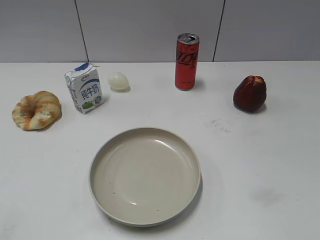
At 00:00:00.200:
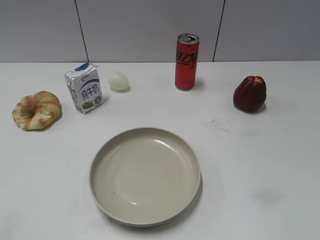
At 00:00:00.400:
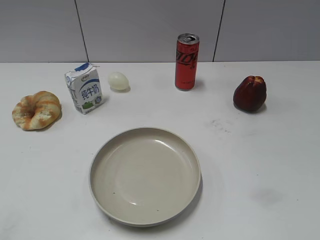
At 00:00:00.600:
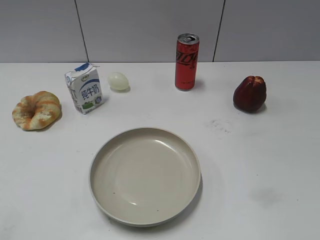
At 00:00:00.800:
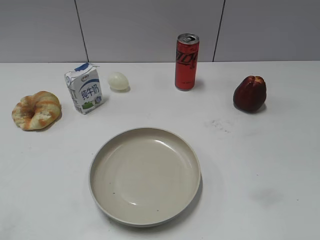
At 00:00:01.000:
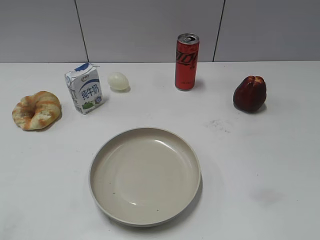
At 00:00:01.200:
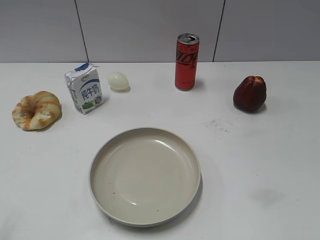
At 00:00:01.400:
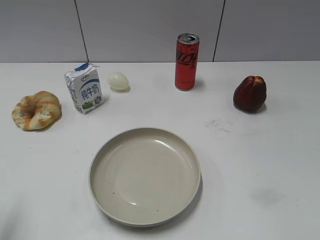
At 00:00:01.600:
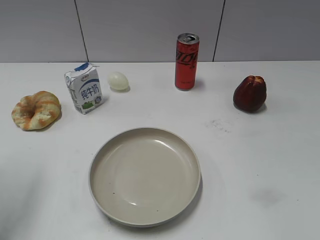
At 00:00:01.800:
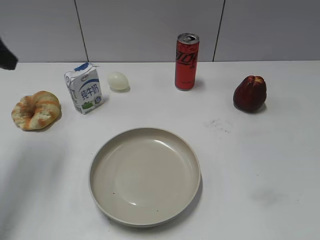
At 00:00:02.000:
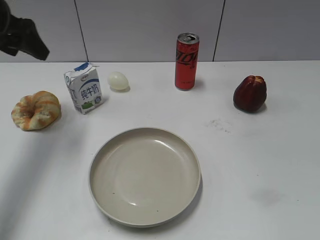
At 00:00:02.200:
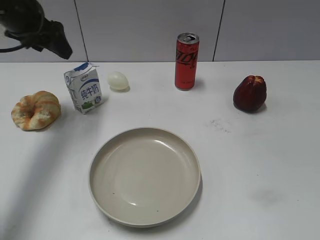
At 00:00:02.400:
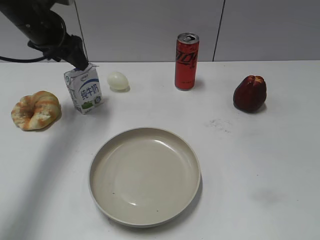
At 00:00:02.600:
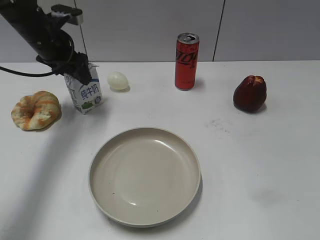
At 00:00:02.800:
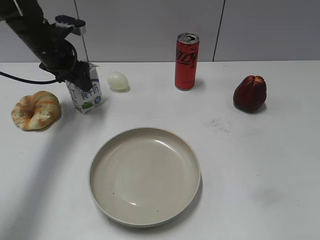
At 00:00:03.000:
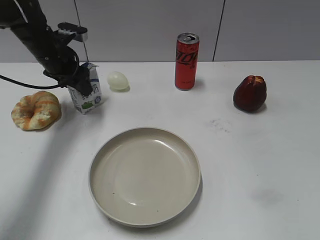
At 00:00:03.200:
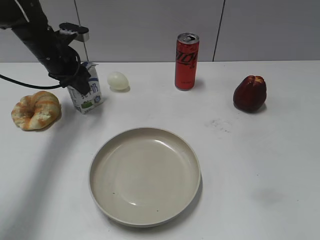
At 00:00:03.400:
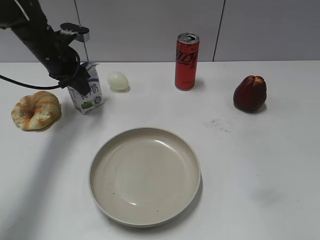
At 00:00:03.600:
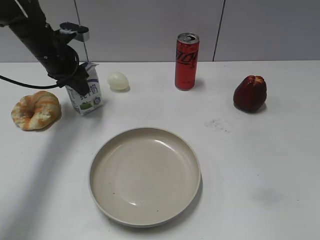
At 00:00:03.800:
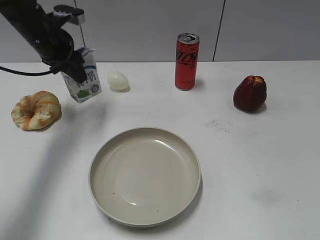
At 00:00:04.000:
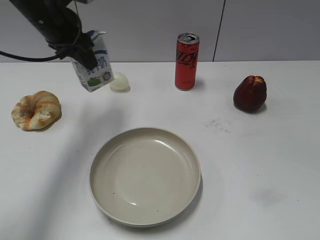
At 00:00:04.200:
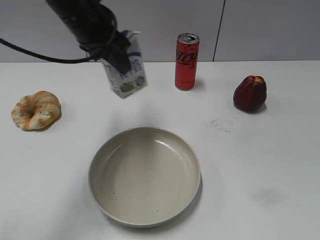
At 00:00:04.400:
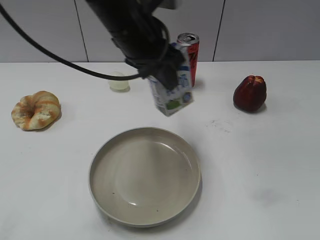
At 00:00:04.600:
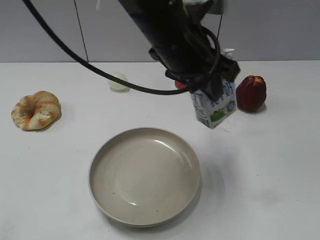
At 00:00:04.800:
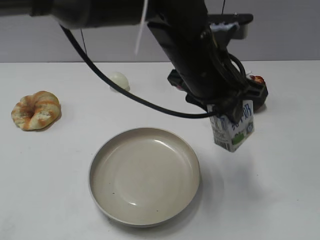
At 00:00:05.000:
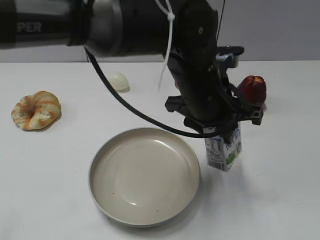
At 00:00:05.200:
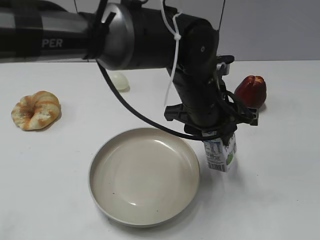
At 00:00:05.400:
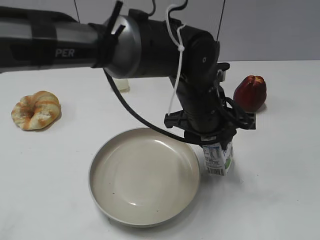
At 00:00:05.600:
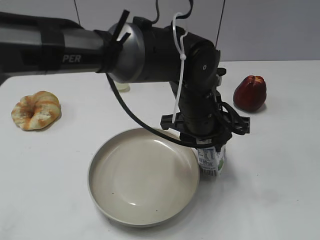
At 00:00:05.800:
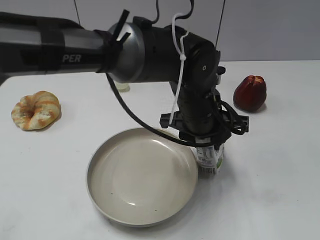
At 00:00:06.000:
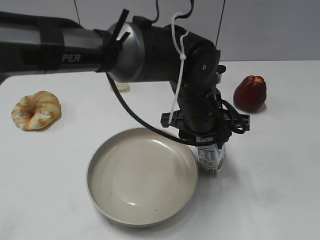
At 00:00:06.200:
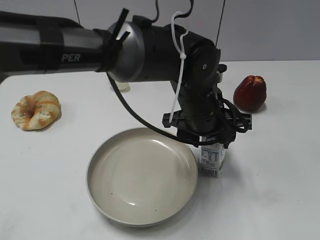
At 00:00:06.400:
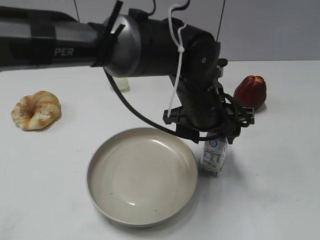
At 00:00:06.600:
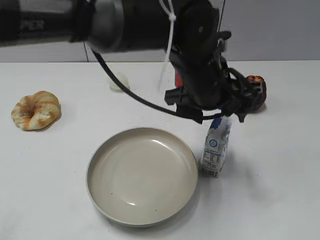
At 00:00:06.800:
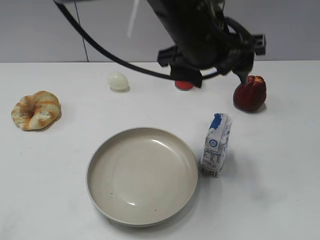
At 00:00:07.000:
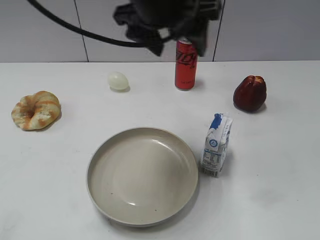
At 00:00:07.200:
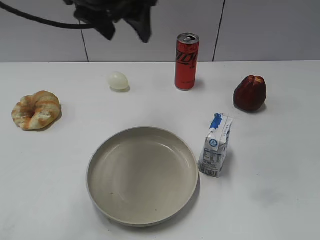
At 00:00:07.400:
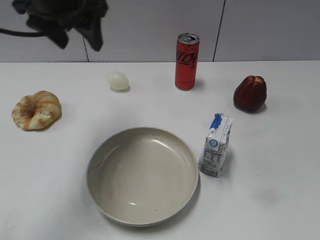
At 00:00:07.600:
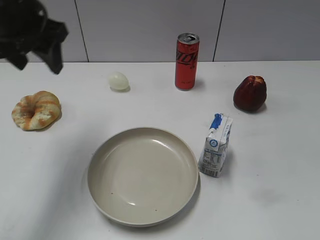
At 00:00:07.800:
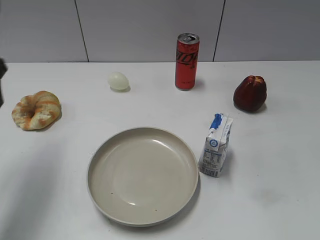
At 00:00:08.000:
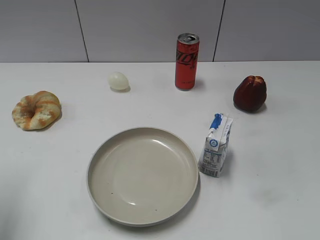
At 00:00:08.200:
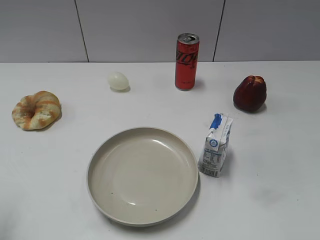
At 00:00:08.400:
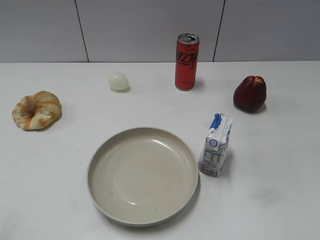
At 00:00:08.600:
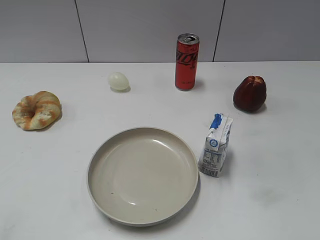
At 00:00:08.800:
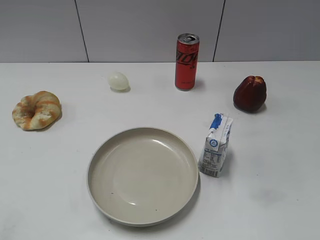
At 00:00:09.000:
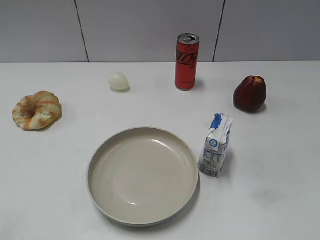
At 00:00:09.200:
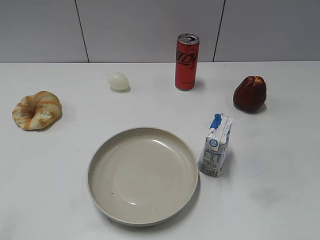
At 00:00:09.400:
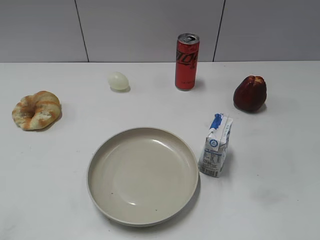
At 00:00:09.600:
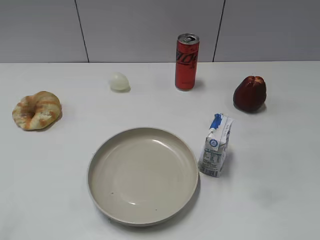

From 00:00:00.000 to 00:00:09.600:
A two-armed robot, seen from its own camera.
Step, from 00:00:01.200 to 00:00:03.200: Grasp the milk with left gripper.
Step, from 00:00:03.600 to 00:00:06.400: Place the milk on the table with left gripper.
From 00:00:01.600 to 00:00:03.200: The left gripper shifts approximately 25 cm forward, downward and to the right, and closes its fingers.
From 00:00:03.200 to 00:00:04.800: The left gripper travels to the right and backward by about 35 cm.
From 00:00:04.800 to 00:00:06.400: The left gripper opens up.
From 00:00:06.400 to 00:00:08.000: The left gripper heads to the left, covering roughly 35 cm.
From 00:00:08.000 to 00:00:09.600: The left gripper goes roughly 15 cm backward.
